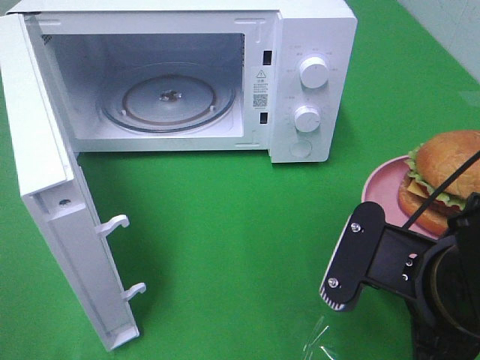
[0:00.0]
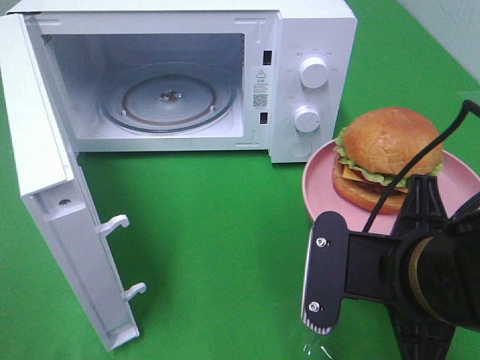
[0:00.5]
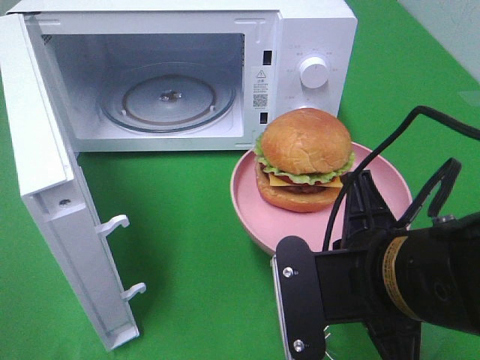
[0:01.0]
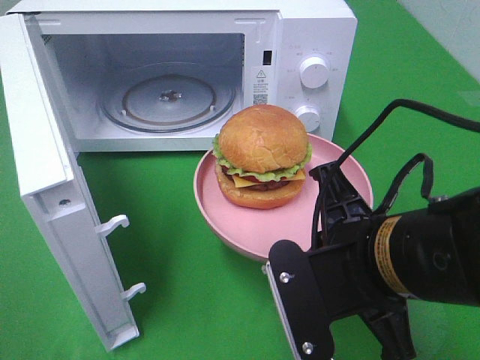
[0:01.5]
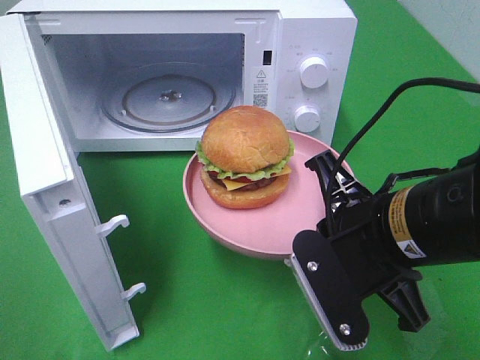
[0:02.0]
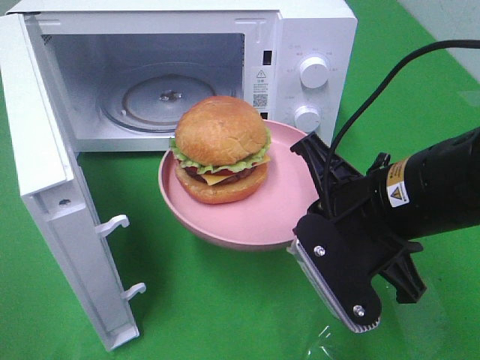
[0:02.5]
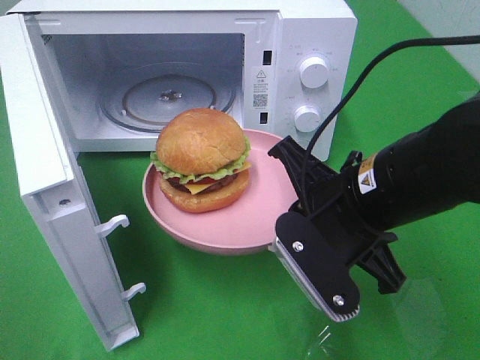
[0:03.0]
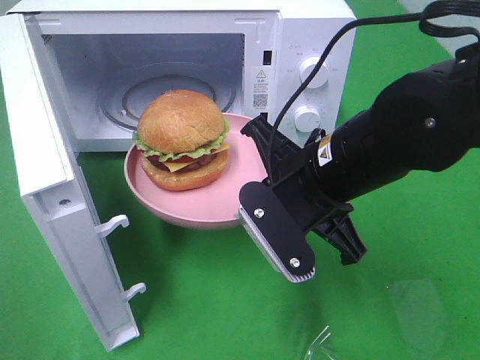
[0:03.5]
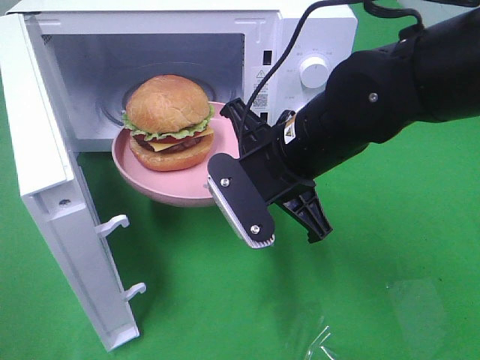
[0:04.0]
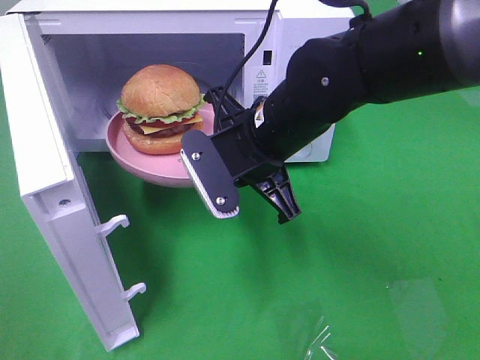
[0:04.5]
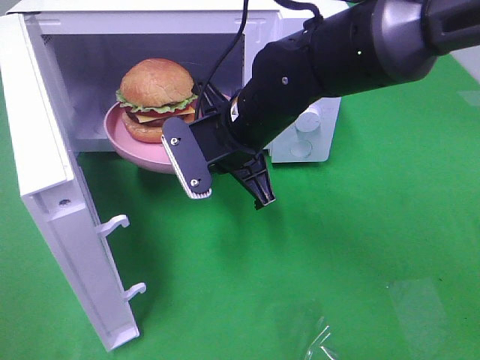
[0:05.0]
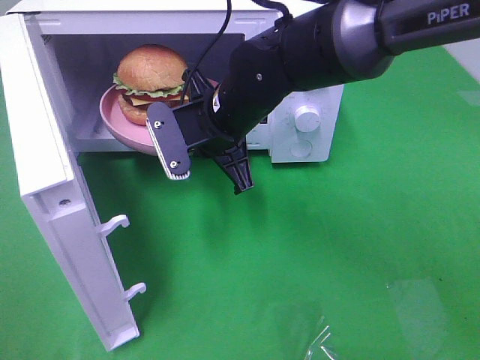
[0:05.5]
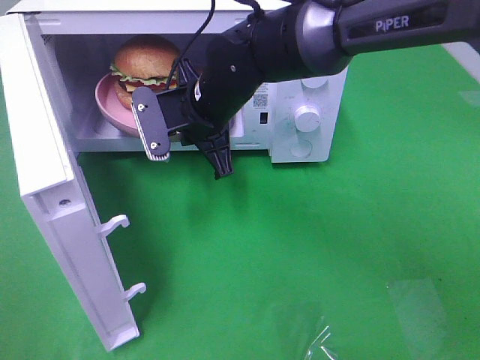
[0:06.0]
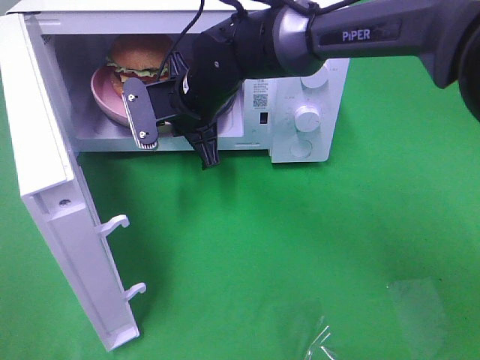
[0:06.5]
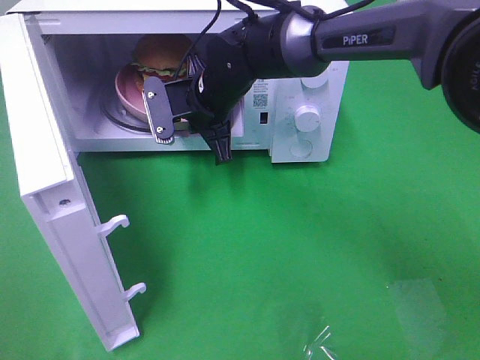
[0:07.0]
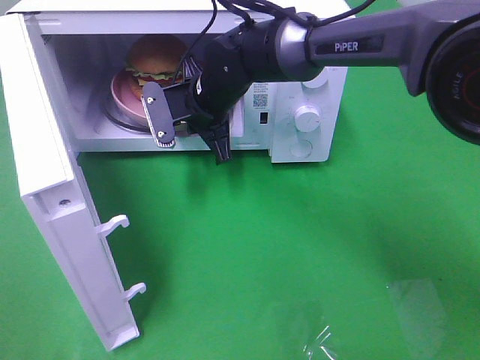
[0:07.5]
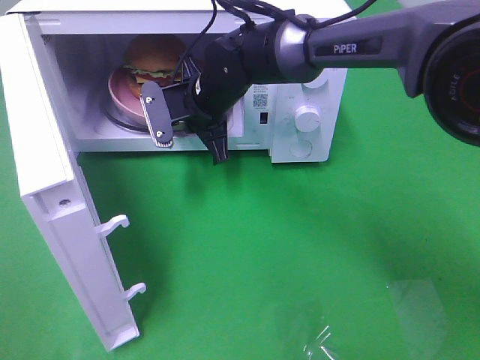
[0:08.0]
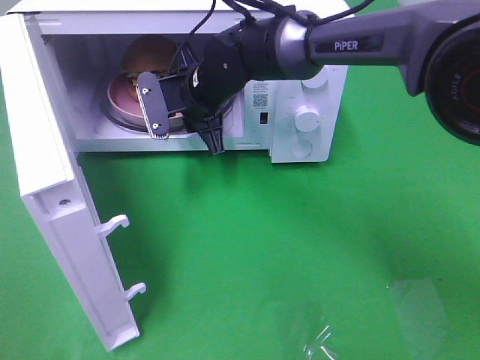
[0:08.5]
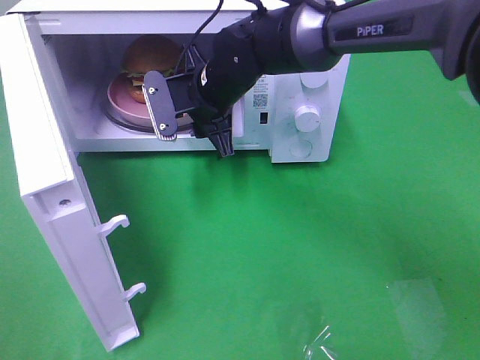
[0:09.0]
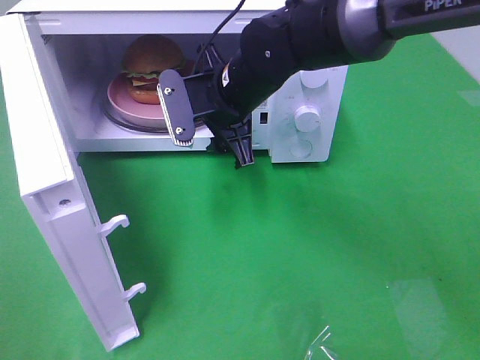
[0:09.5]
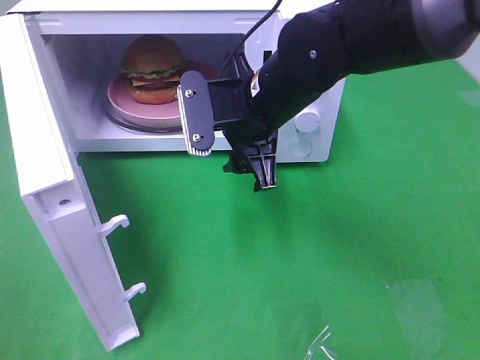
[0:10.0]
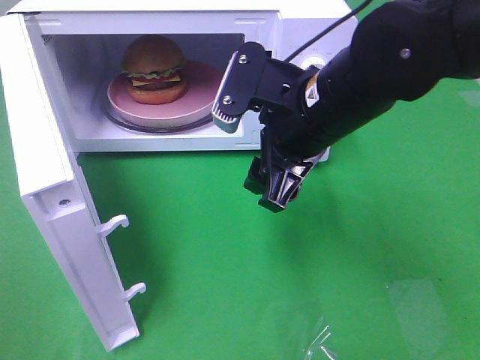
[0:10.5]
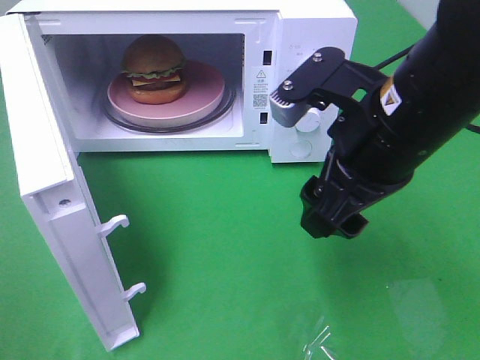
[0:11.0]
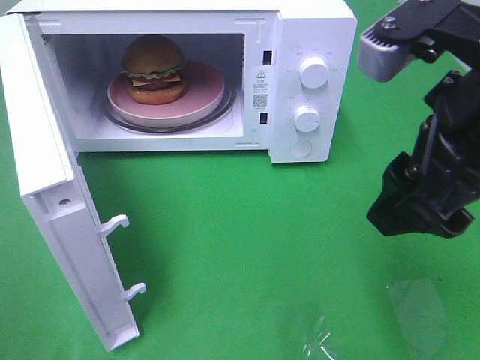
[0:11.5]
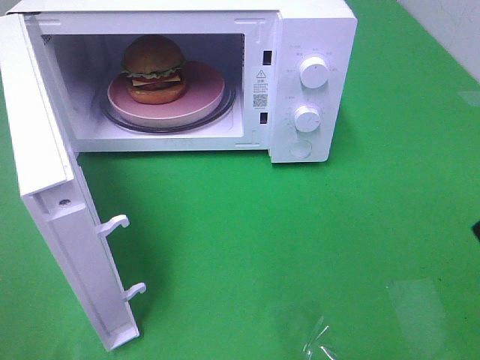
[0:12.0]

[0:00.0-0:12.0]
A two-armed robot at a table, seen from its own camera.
Task of the whole recording: Heat the burger.
Step, 0.0 to 9.0 s: Right hand: place the plate in the microwave.
0.0 to 2.0 s: The right gripper changes place by about 5 cm.
2.0 to 4.0 s: The right gripper moves forward and to the left, some 10 cm.
4.0 to 6.0 s: The right gripper shifts approximately 15 cm forward and to the left.
6.0 to 8.0 s: The right gripper ends up about 5 cm from where it was.
8.0 to 10.0 s: The right gripper travels backward, to the right and upward by approximately 15 cm, and opens up.
10.0 to 12.0 s: The right gripper goes roughly 30 cm to the right, backward and upward.

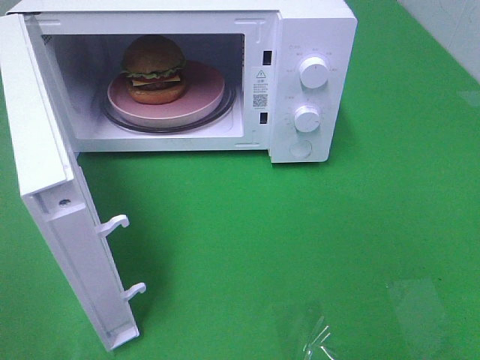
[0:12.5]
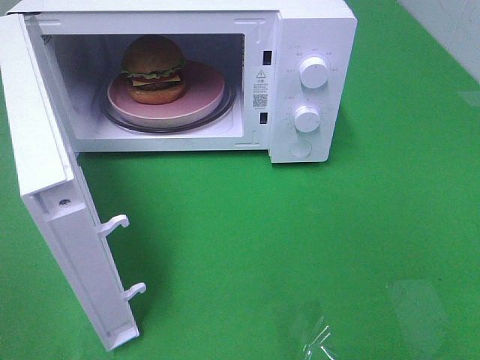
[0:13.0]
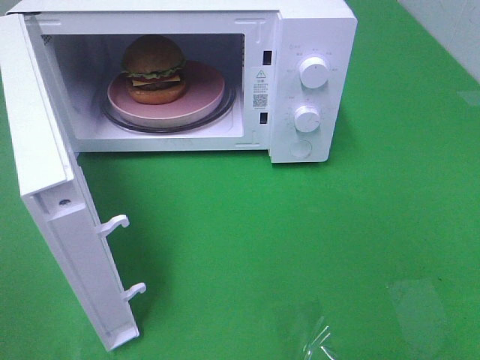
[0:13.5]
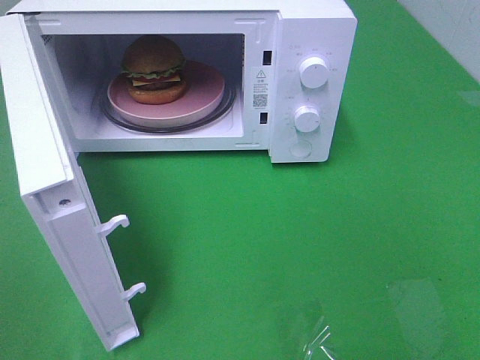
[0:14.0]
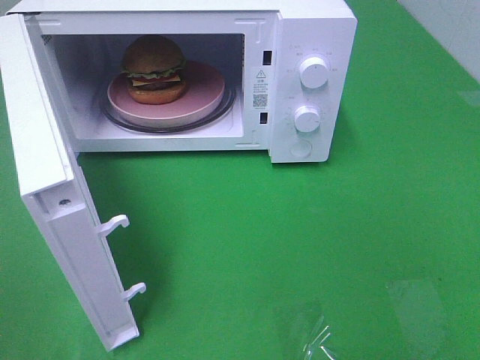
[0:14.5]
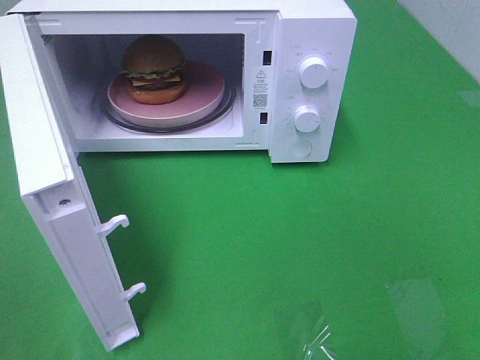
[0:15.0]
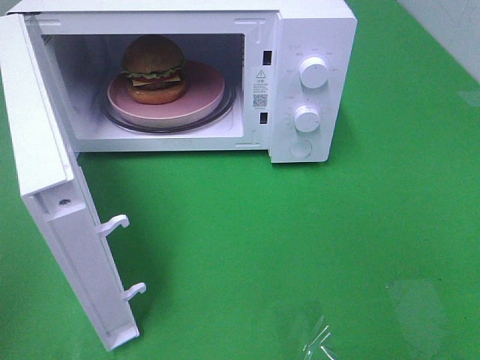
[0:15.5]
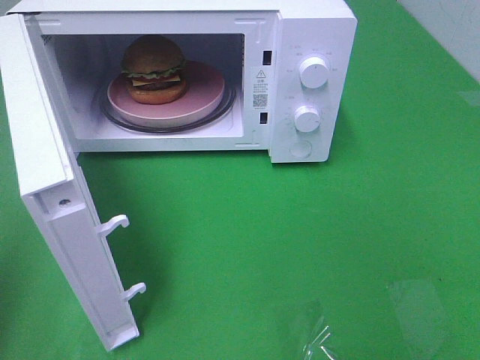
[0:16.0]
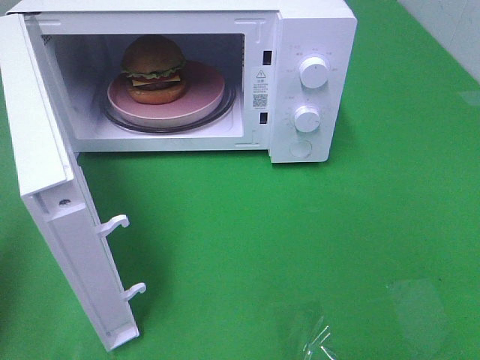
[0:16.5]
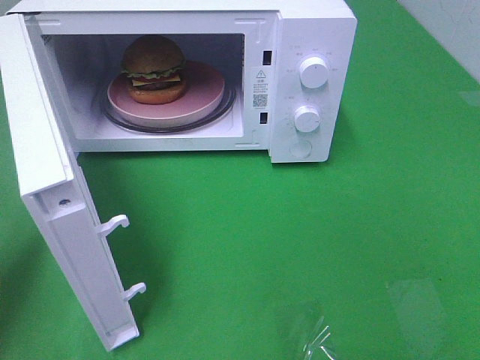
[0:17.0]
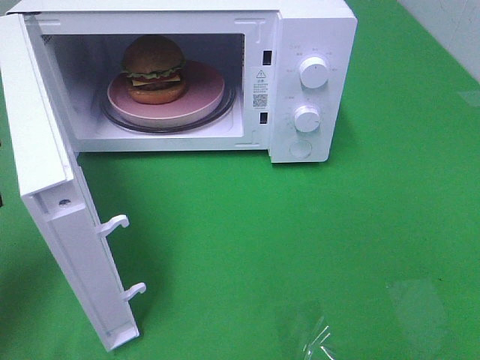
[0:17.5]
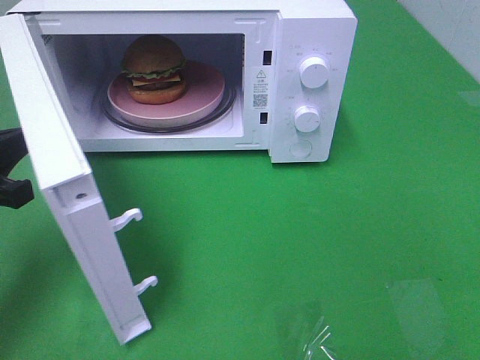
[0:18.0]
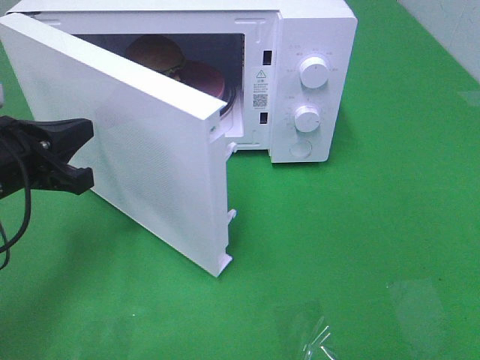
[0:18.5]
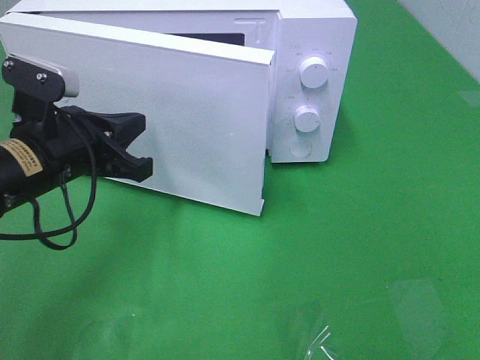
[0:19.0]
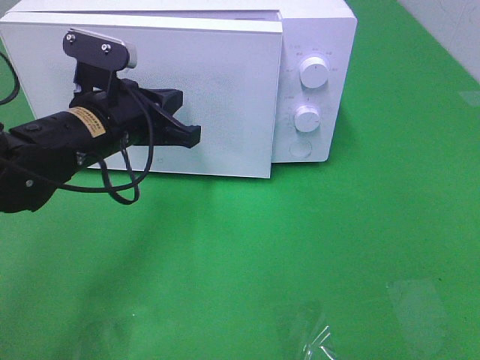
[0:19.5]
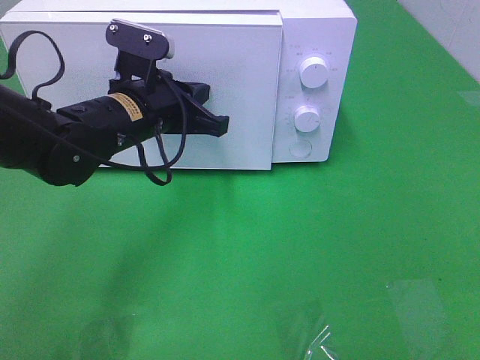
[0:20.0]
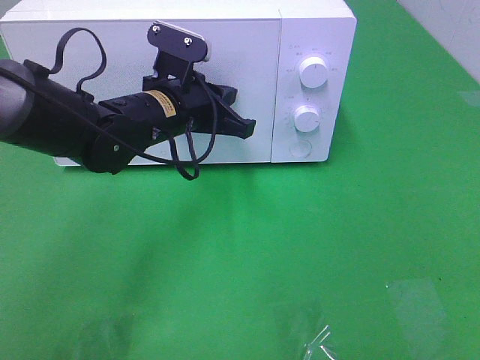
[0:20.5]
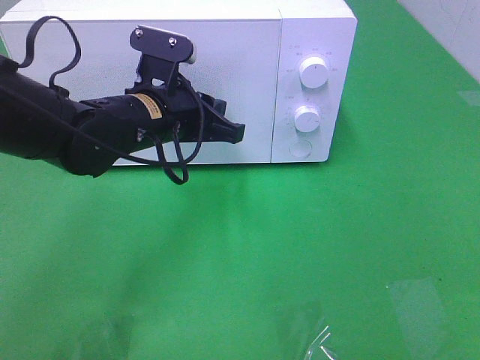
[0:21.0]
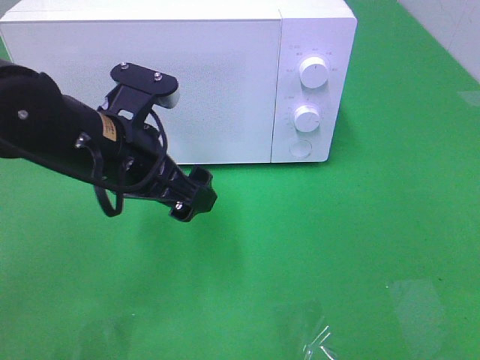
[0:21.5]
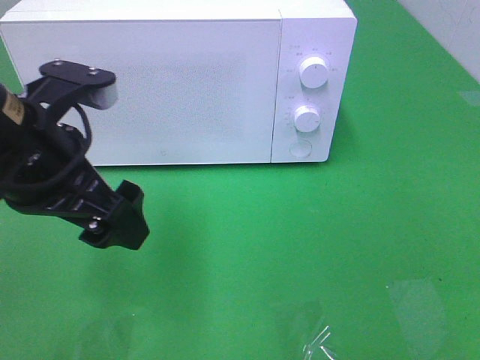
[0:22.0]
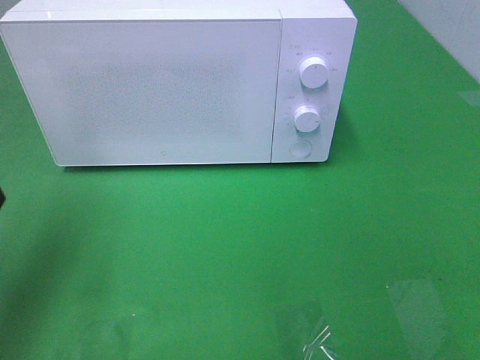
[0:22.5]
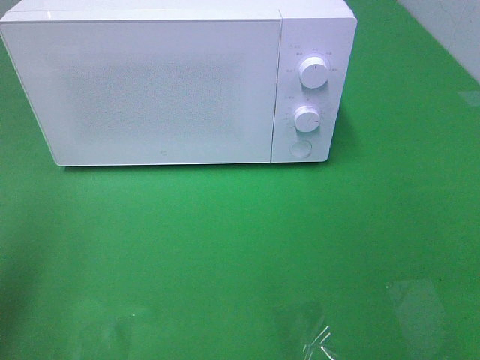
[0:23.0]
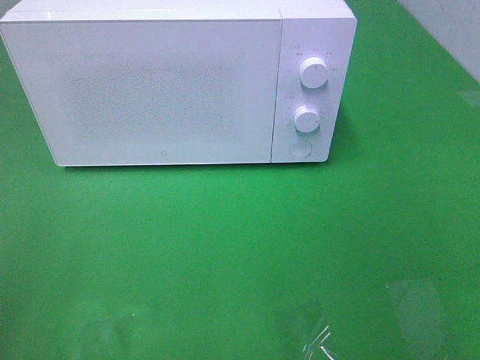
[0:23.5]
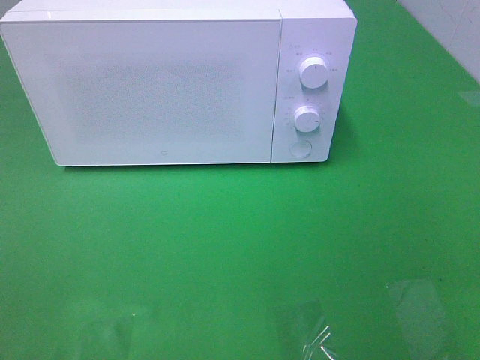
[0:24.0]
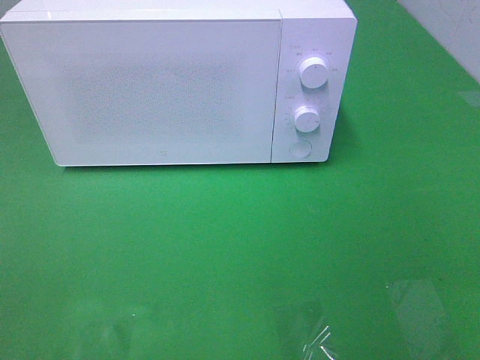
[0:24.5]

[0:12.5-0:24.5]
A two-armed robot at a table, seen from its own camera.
Task of the whole recording: Heat the burger.
Step, 12.5 to 21.0 s: Left hand: close the microwave door.
14.5 to 16.5 s: The left gripper shifts about 15 cm forward, and closes up.
16.5 to 18.5 s: The left gripper goes some 15 cm forward, to the right and downward.
18.5 to 20.5 s: The left gripper goes some 20 cm to the right and forward.
20.5 to 22.5 s: The left gripper goes some 25 cm to the left, backward and upward, and opens its fingers.
22.5 to 24.5 s: The left gripper moves backward, approximately 20 cm.

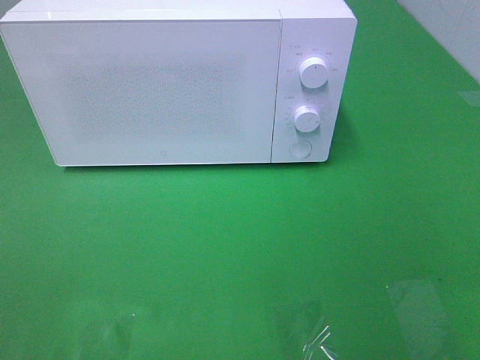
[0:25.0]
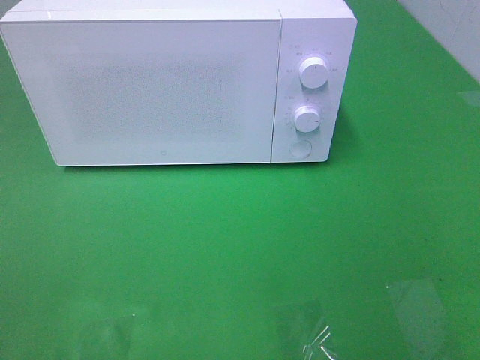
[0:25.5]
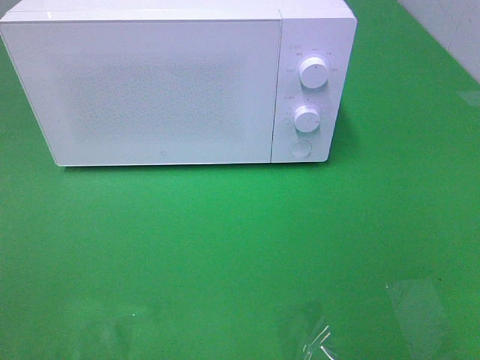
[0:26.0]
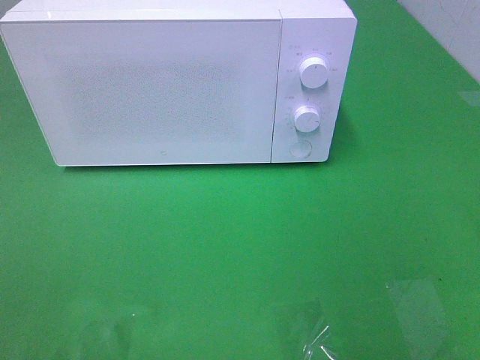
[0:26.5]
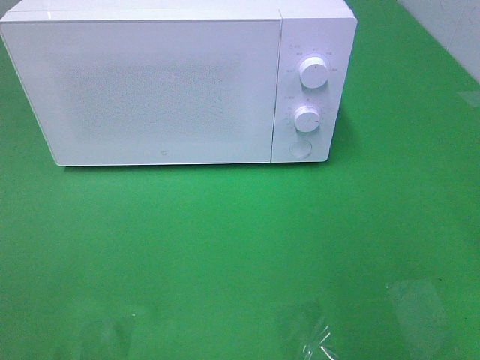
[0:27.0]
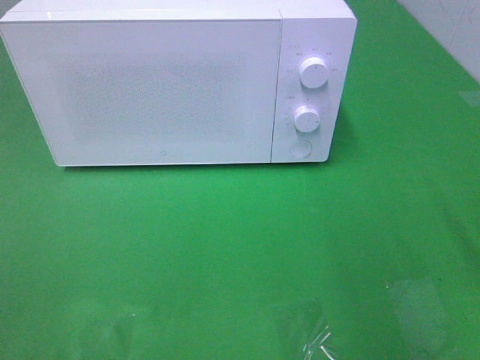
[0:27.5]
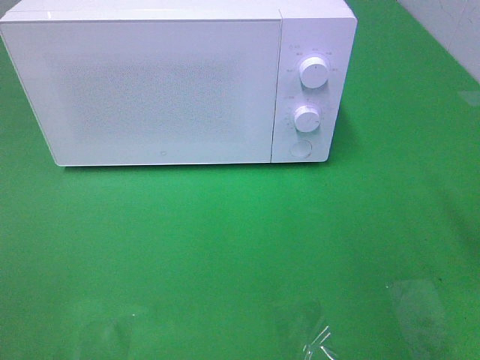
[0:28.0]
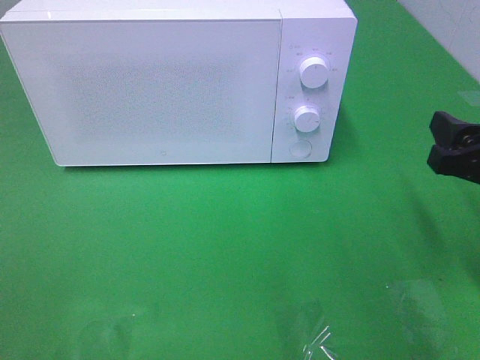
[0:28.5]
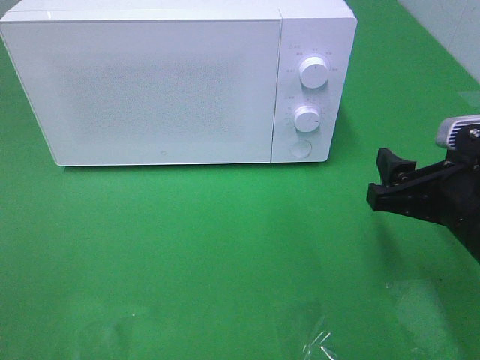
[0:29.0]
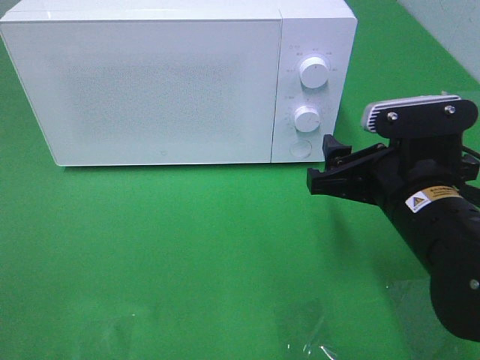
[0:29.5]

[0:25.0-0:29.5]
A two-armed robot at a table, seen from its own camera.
Task of the whole recording: Heat the burger.
27.0 to 29.5 s: The right gripper shifts some 20 cm downward, to the left and forward.
